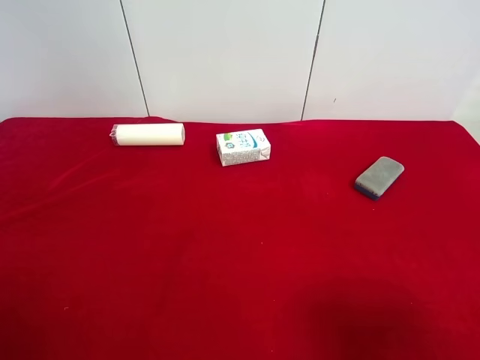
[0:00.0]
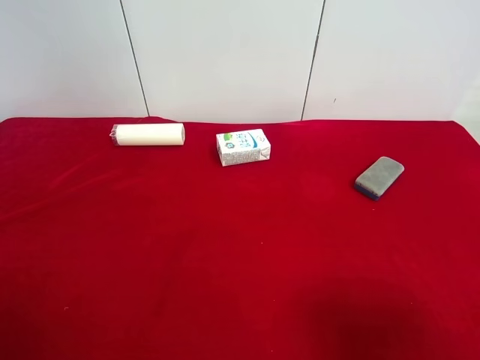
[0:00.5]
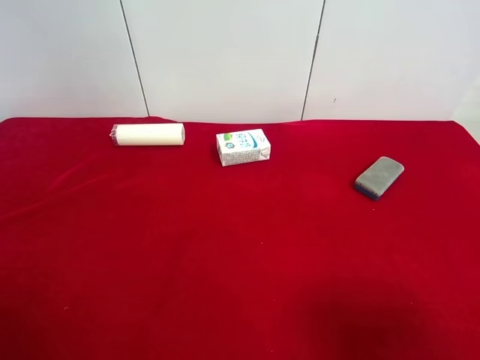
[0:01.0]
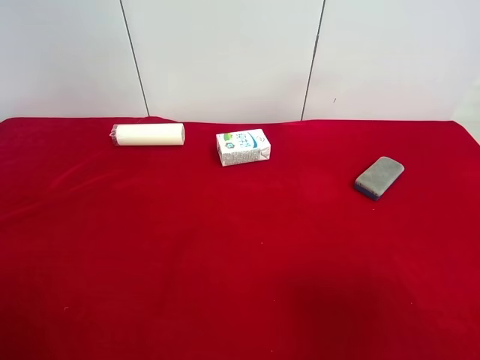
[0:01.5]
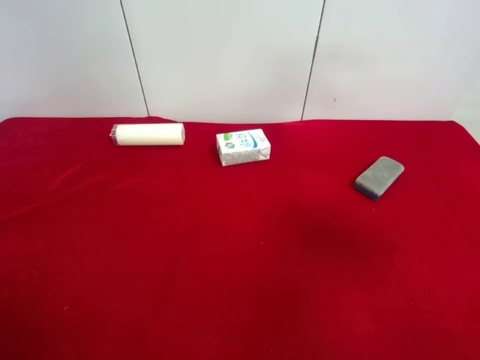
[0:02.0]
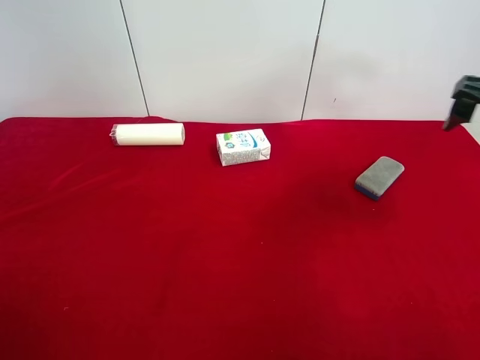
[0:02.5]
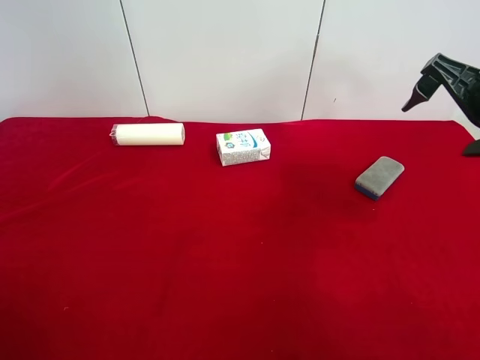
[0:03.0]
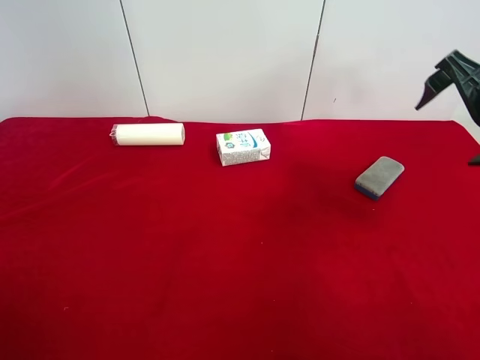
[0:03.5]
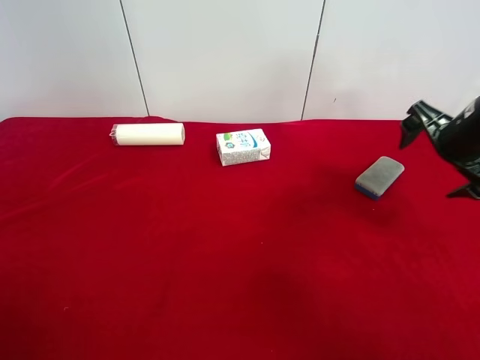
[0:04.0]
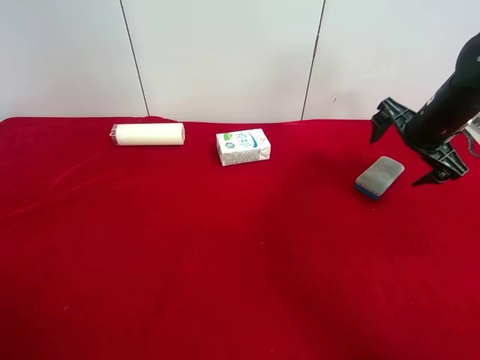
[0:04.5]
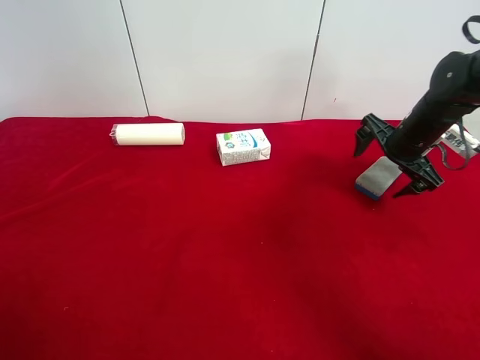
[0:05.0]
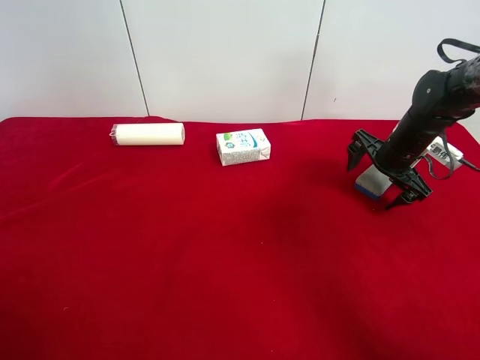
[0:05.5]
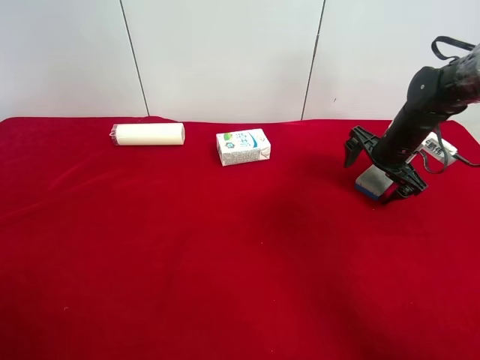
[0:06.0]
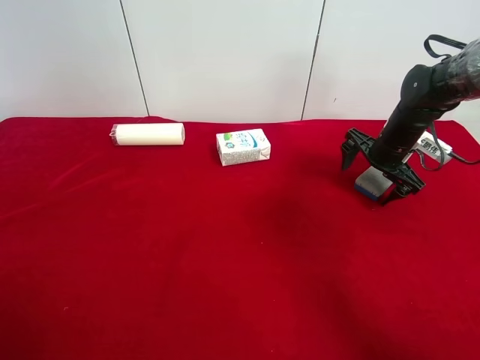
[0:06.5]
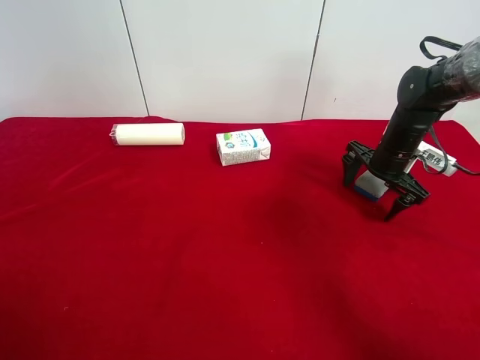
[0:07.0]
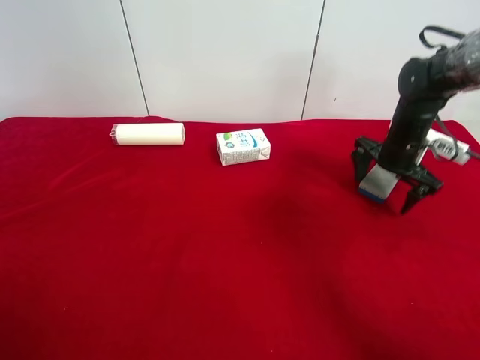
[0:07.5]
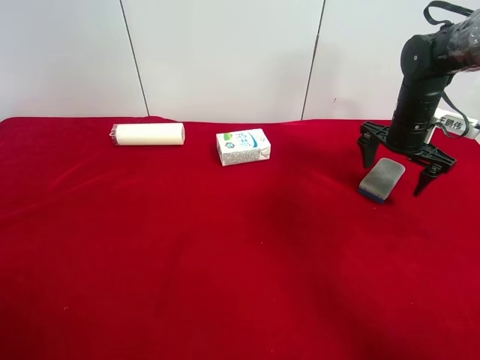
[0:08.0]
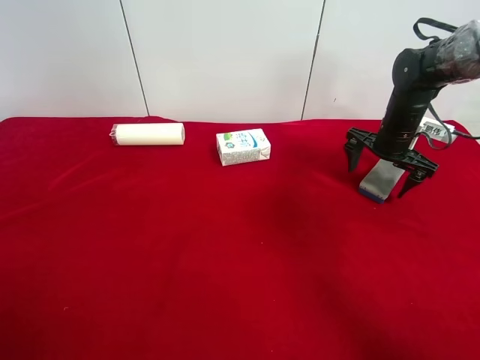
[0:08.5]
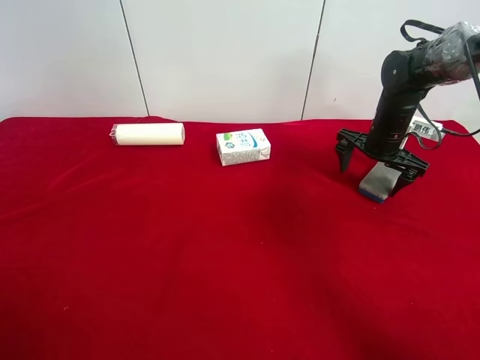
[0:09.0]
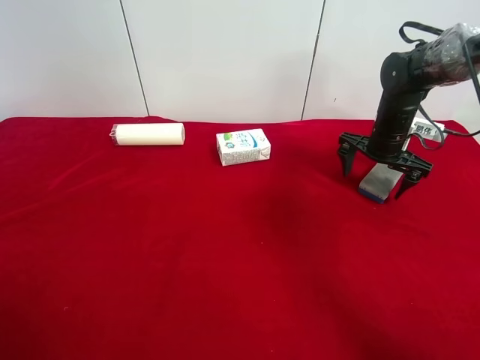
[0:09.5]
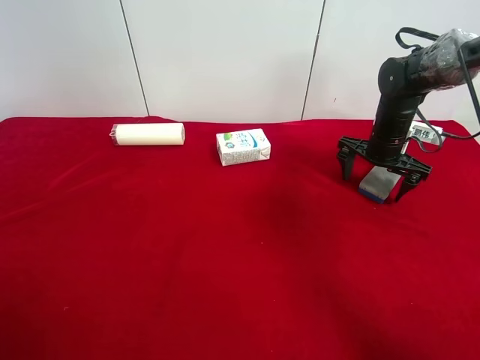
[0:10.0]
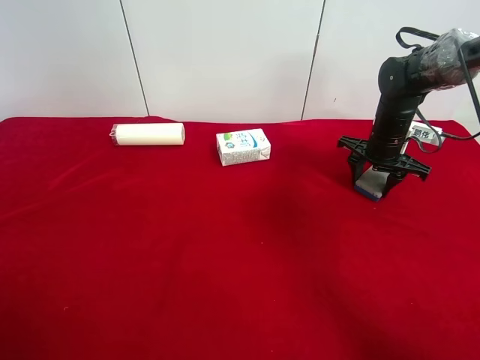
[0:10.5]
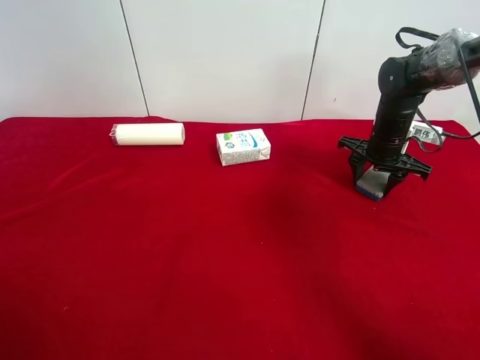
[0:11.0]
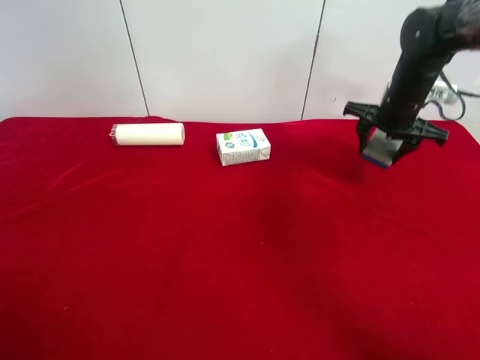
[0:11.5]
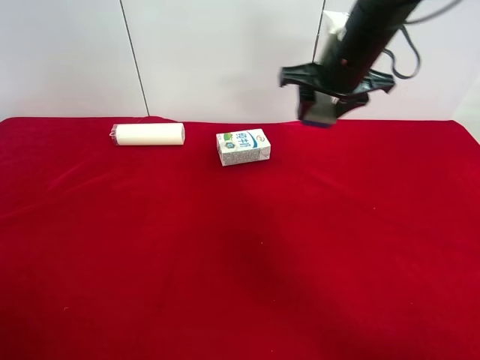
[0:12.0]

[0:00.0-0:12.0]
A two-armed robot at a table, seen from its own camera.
Task of the whole recording: use the right gripper to pick up the item and transfer it from the right gripper to the left gripper.
Step, 0:00.0 to 0:10.0: Use the right gripper to grab the blue blackboard erasure on the right side of the table.
0:02.0 to 0:04.0: The right gripper shifts roughly 25 cm forward and downward.
0:04.0 to 0:06.0: The right gripper travels forward and downward by about 15 cm.
0:06.0 to 0:08.0: The grippers make only small movements.
0:08.0 to 0:10.0: The grippers make only small movements.
0:10.0 to 0:12.0: The right gripper heads upward and to the left, covering roughly 20 cm, and closes up.

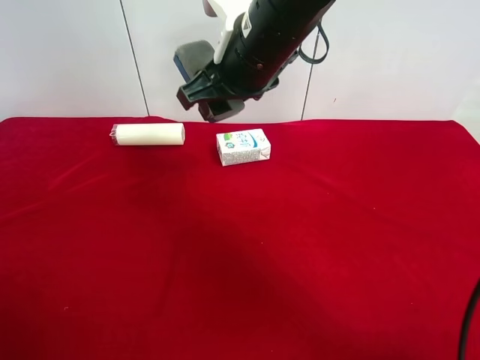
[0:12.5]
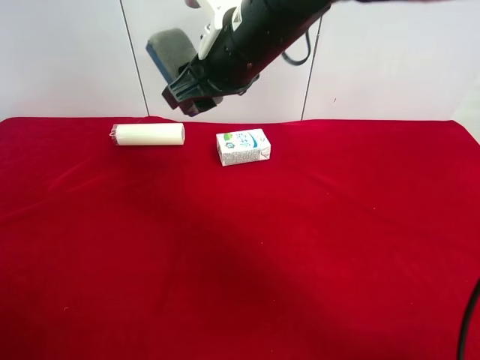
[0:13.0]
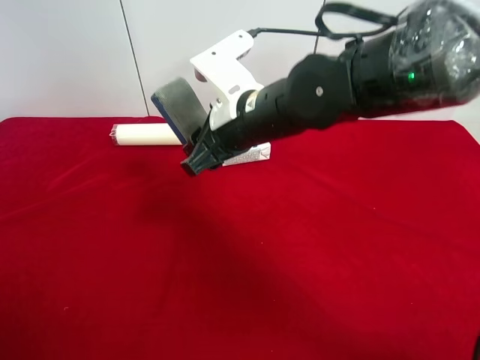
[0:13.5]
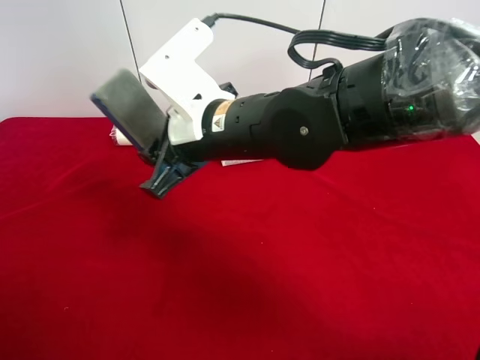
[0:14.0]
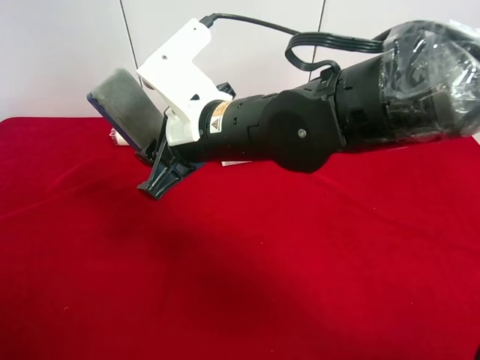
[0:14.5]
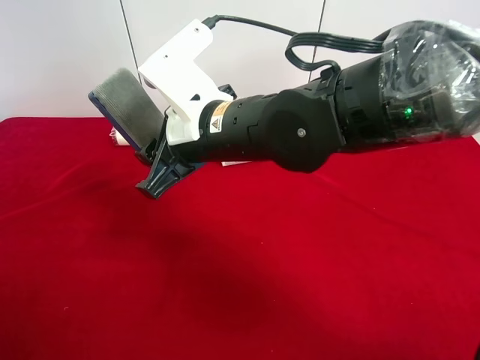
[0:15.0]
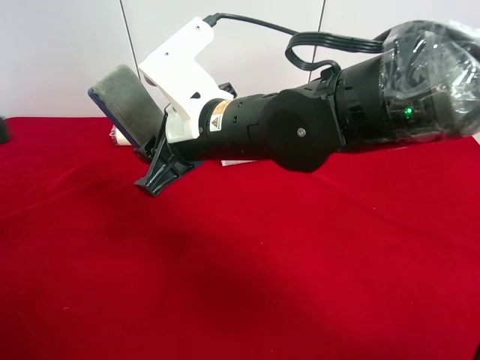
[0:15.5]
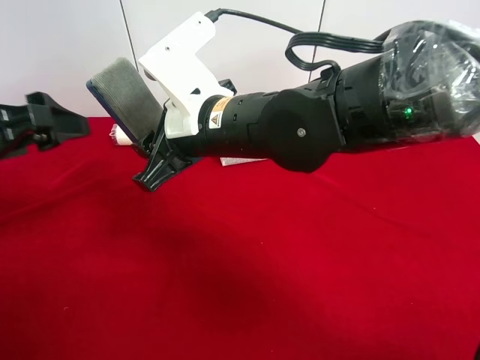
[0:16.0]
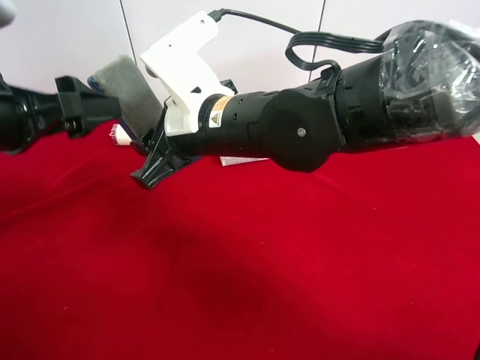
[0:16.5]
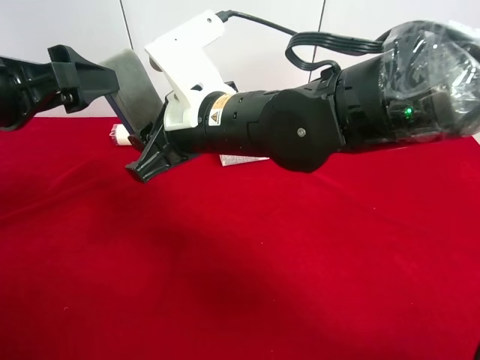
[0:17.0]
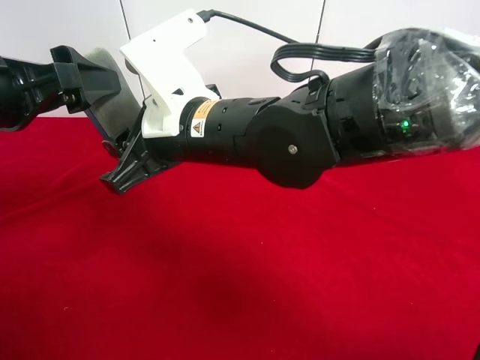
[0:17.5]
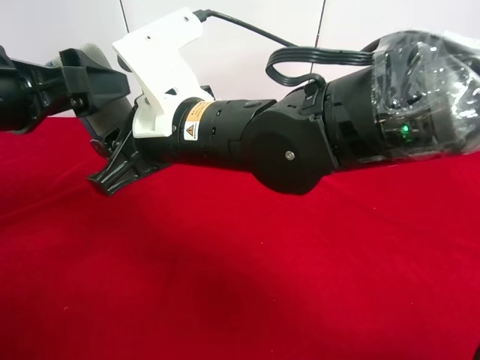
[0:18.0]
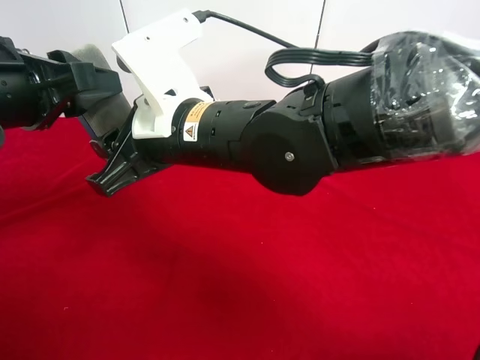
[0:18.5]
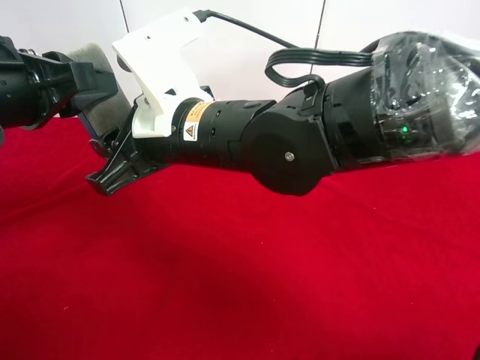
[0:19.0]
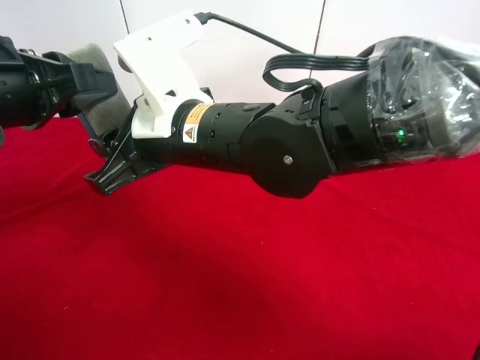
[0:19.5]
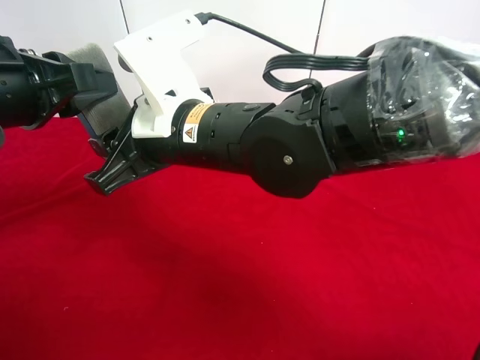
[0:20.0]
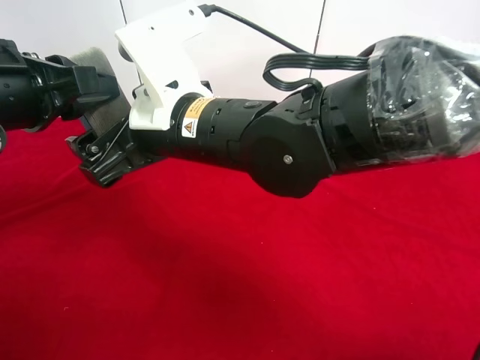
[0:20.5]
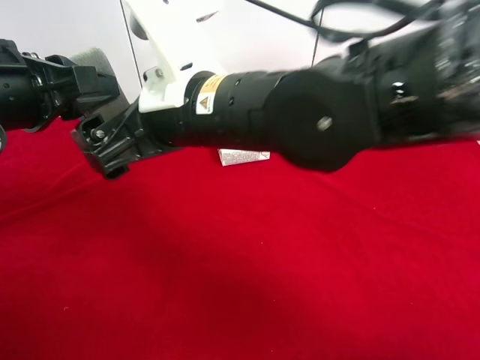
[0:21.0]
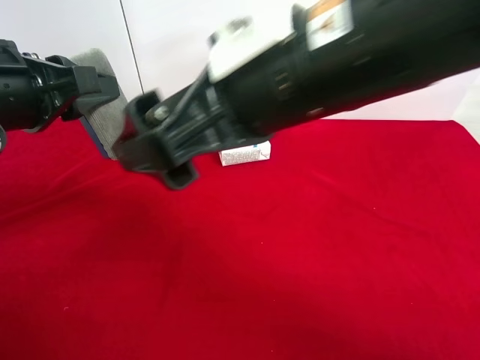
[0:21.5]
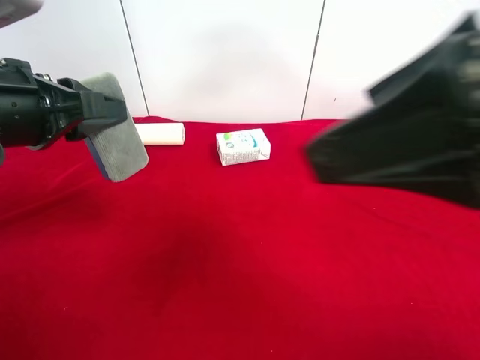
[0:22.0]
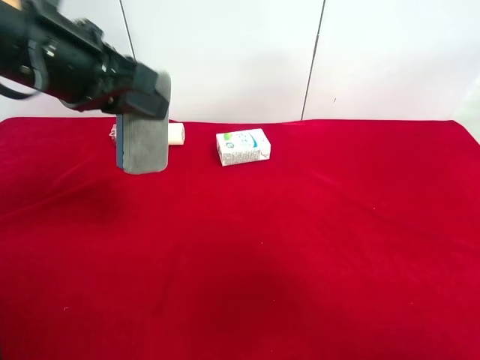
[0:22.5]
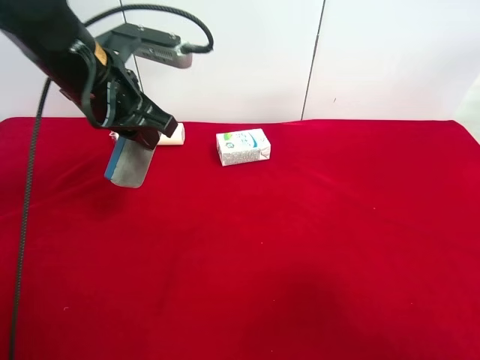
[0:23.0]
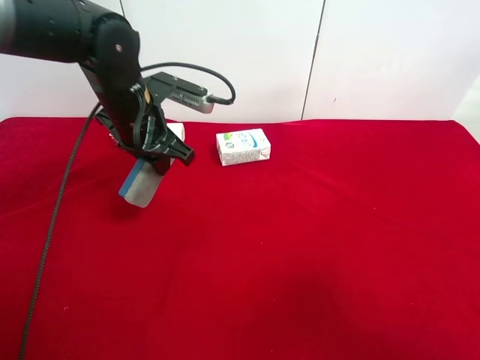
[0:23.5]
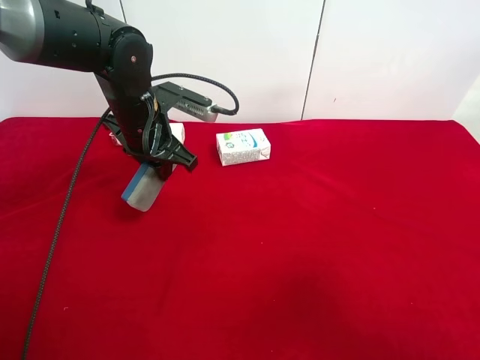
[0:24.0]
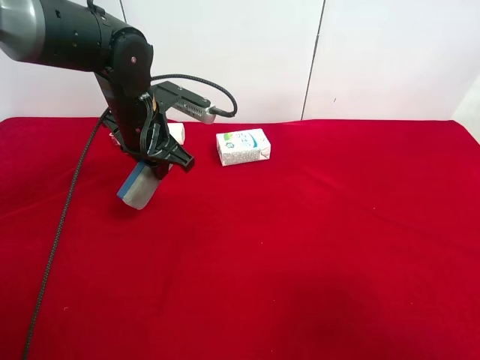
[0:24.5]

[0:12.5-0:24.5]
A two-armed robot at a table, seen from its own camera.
Task of the whole recording: use the right gripper to pick up the item and transfer it from the right gripper to the left gripper.
Step, 0:12.5 to 0:20.0: Pass the blue blackboard erasure to the left gripper.
0:12.5 to 0:14.5: The right gripper is displaced downward and backward by some 10 cm.
0:14.5 to 0:16.5: The left gripper moves forward and to the right, some 20 cm.
0:16.5 to 0:18.5: The left gripper closes up.
0:18.5 to 0:20.5: The right gripper opens up.
0:20.5 to 0:22.5: The right gripper heads to the right, backward and upward, covering approximately 35 cm, while the left gripper moves to the right, about 5 cm.
0:22.5 to 0:24.5: The left gripper shifts some 15 cm downward and forward. Meanwhile the right gripper shifts some 10 cm downward.

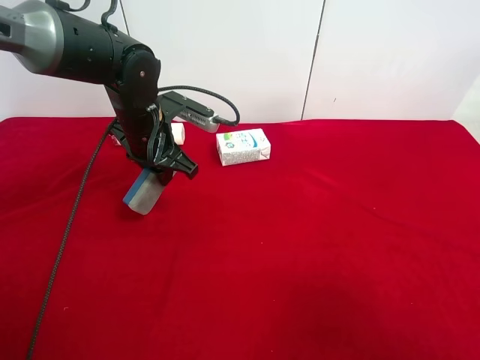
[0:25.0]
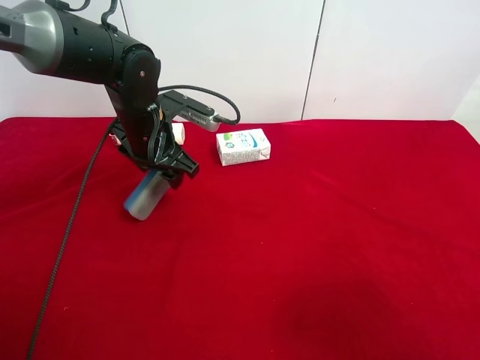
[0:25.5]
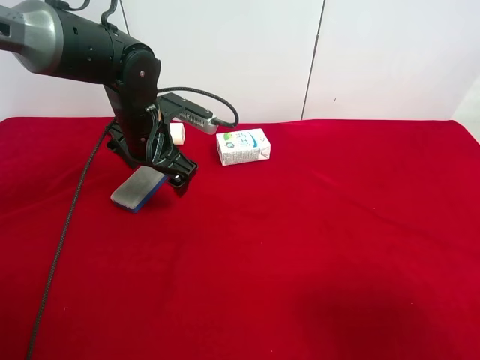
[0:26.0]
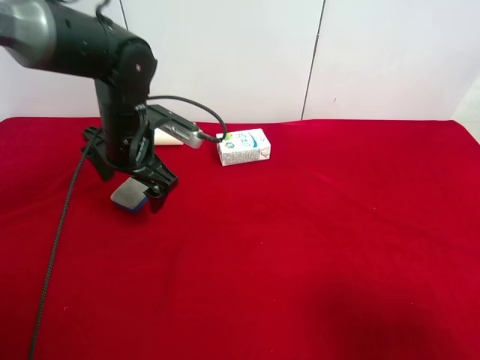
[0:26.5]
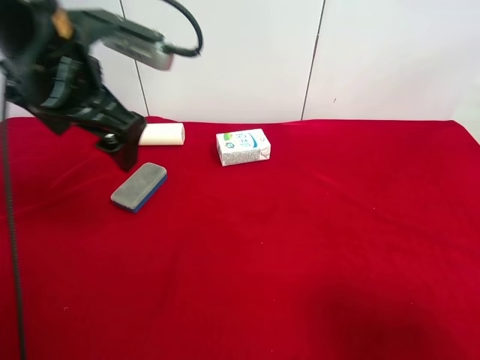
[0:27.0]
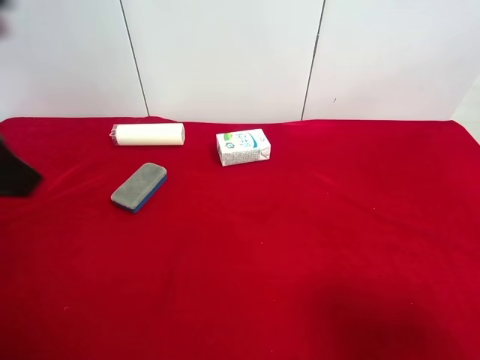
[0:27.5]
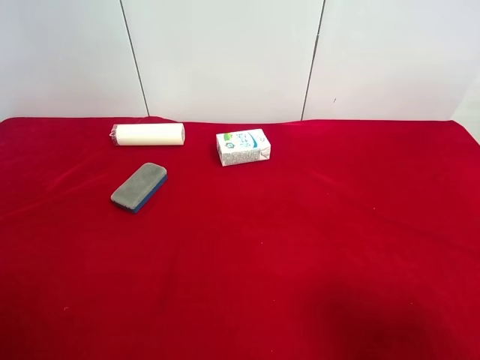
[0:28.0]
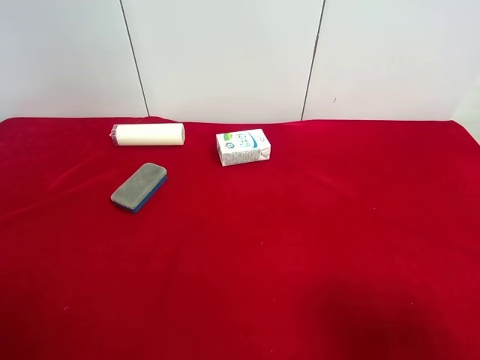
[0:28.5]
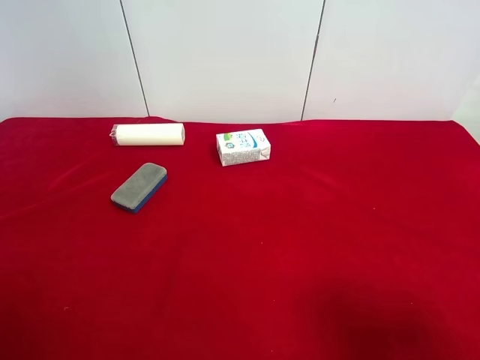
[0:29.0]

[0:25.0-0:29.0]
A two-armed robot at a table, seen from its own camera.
Task of the whole recording: use the right gripper to pick up the item and transfer it from the right gripper to the left gripper.
0:25.0 to 0:27.0: The left gripper travels upward and backward by approximately 20 cm, and opens.
0:27.0 to 0:29.0: The left gripper goes approximately 30 cm backward and to the left.
